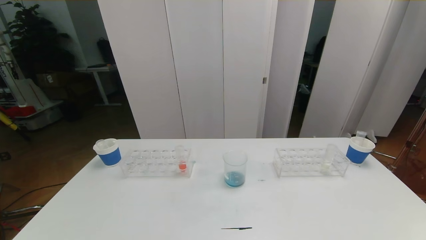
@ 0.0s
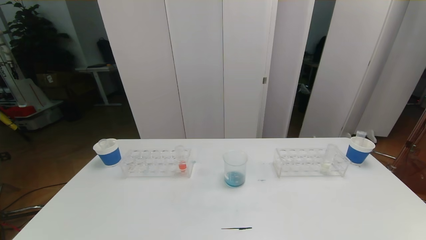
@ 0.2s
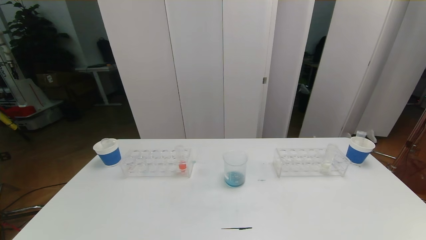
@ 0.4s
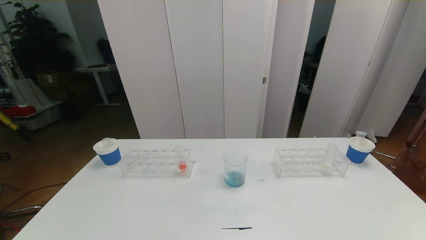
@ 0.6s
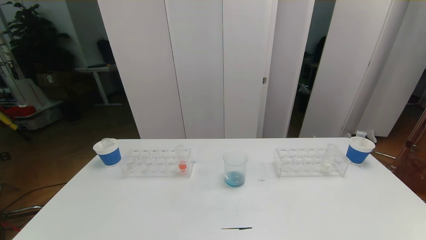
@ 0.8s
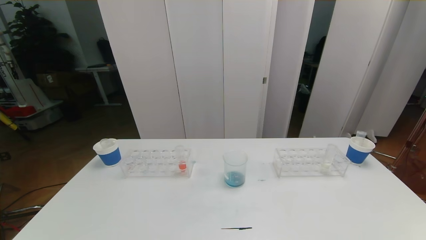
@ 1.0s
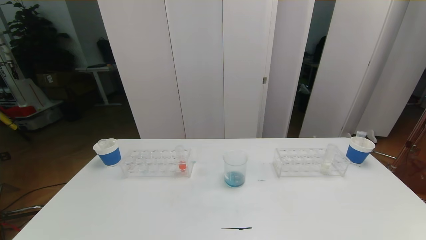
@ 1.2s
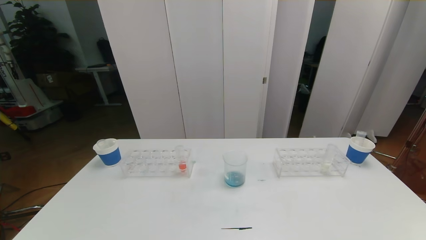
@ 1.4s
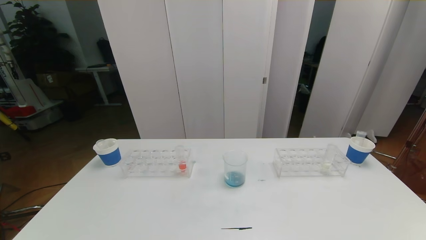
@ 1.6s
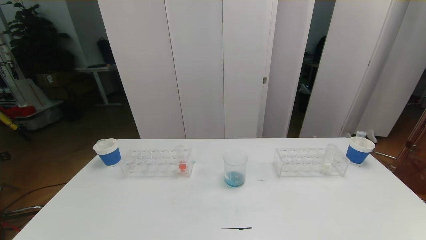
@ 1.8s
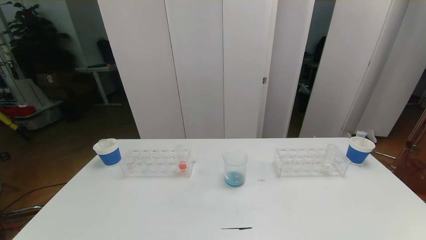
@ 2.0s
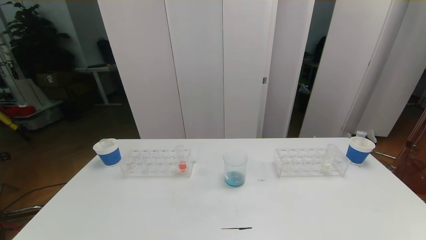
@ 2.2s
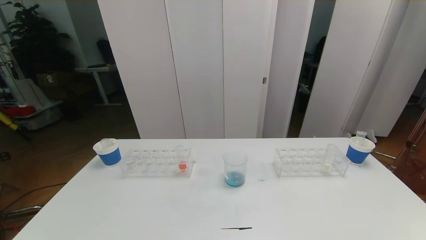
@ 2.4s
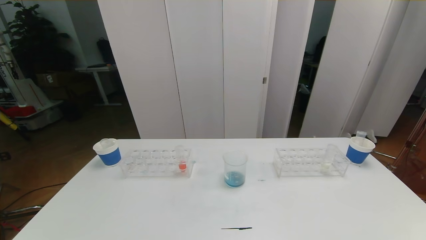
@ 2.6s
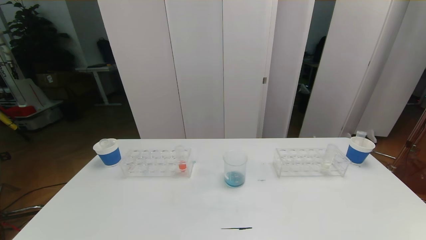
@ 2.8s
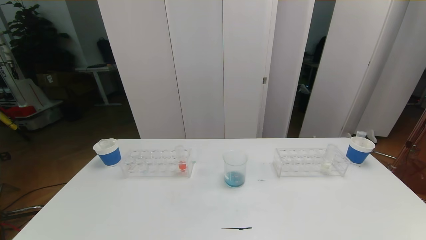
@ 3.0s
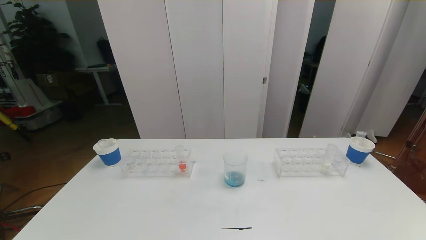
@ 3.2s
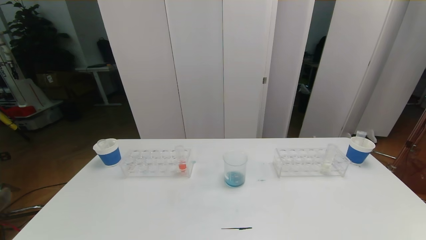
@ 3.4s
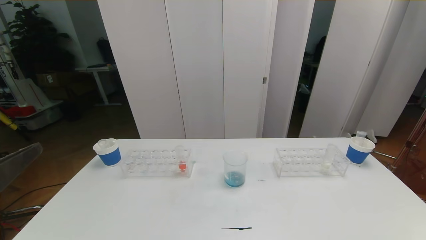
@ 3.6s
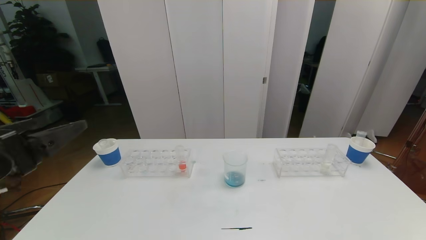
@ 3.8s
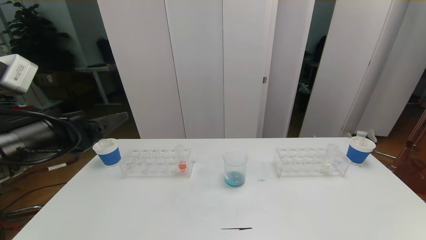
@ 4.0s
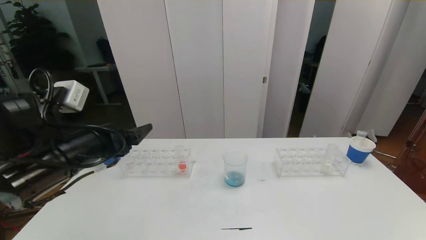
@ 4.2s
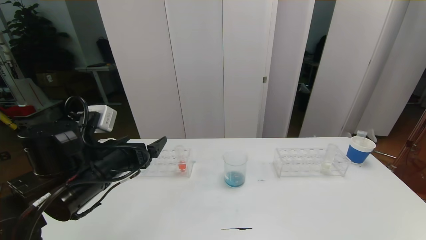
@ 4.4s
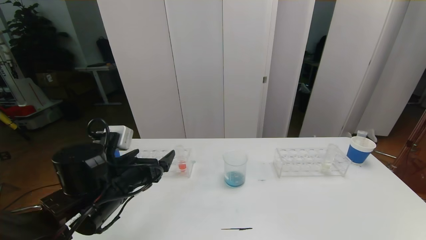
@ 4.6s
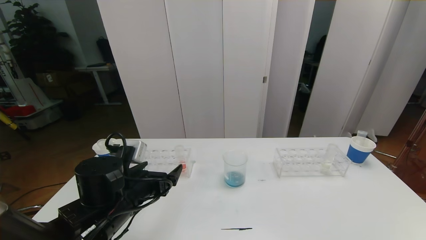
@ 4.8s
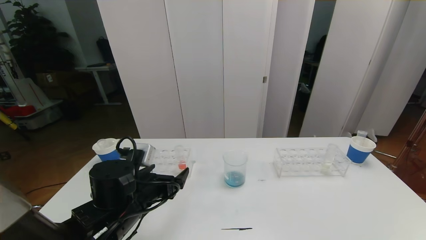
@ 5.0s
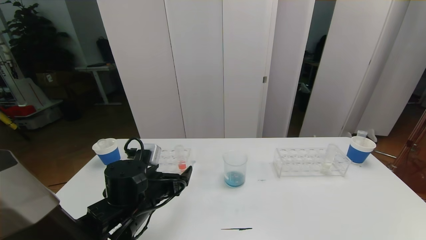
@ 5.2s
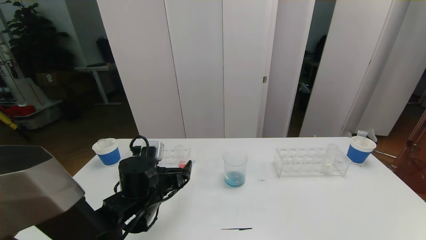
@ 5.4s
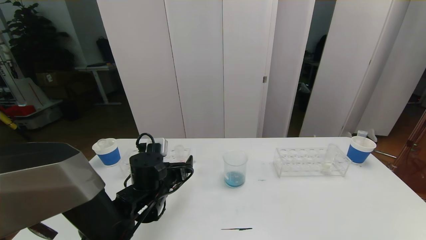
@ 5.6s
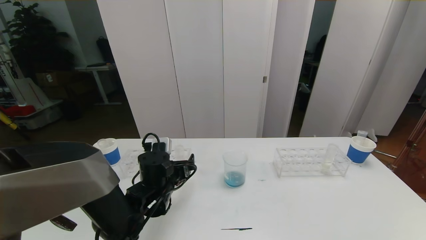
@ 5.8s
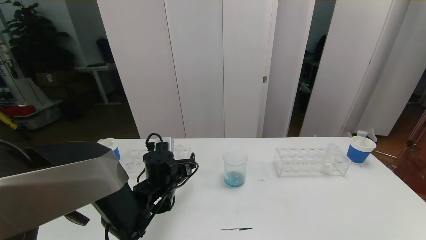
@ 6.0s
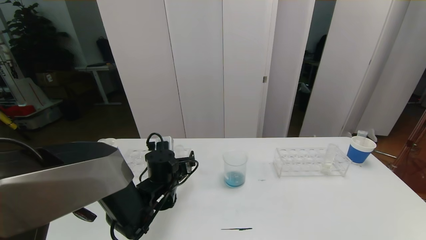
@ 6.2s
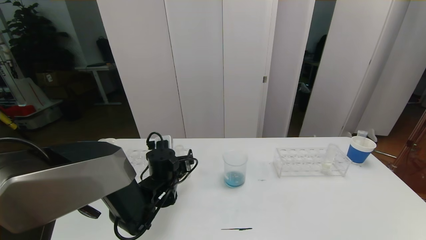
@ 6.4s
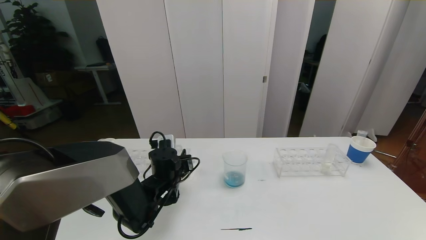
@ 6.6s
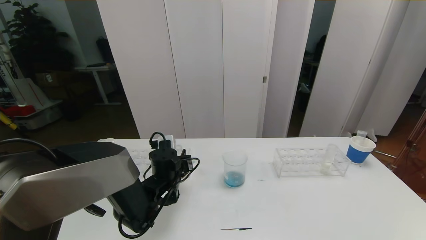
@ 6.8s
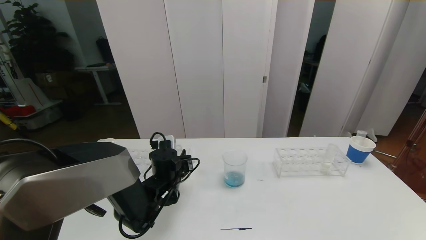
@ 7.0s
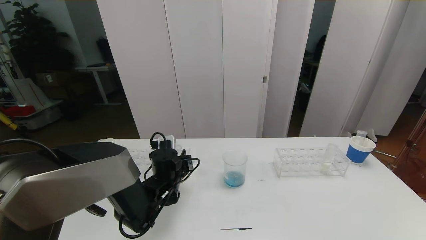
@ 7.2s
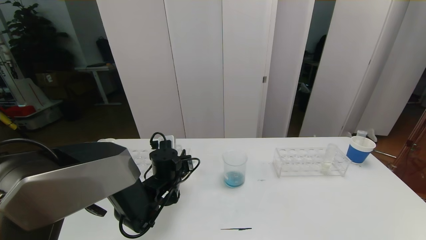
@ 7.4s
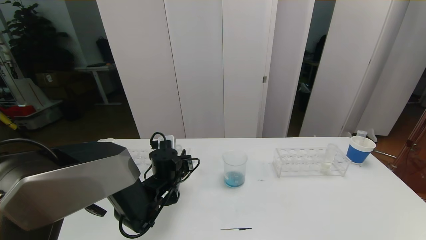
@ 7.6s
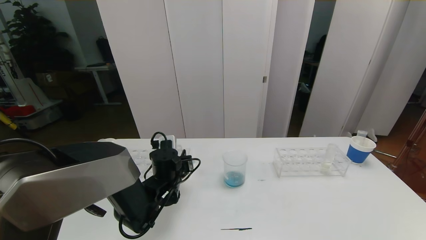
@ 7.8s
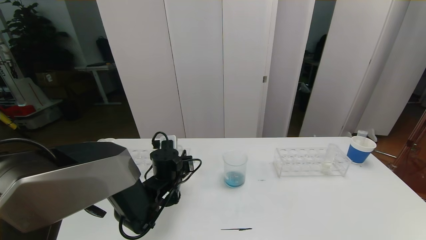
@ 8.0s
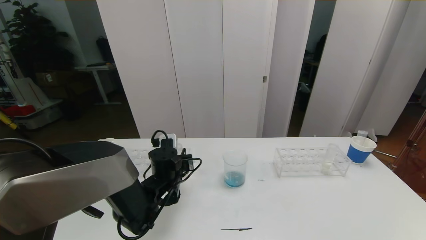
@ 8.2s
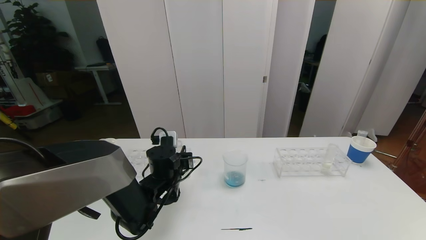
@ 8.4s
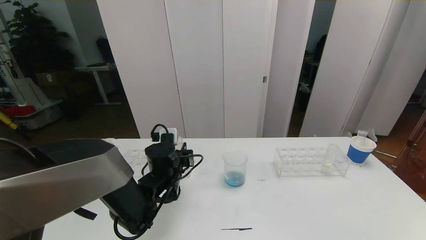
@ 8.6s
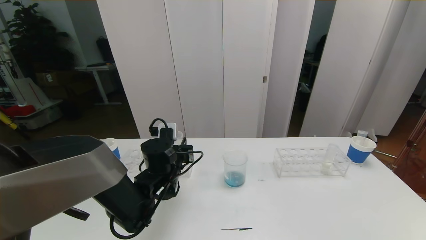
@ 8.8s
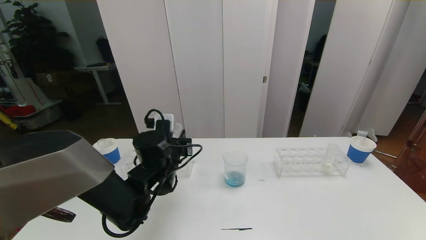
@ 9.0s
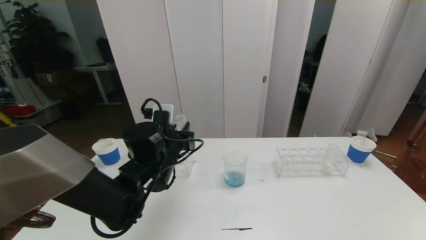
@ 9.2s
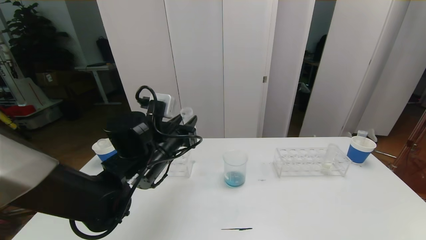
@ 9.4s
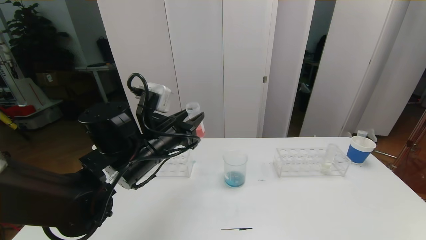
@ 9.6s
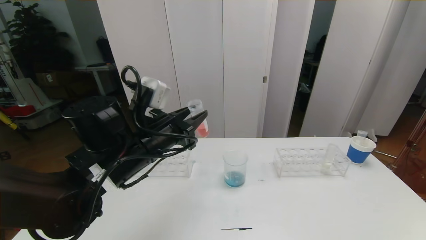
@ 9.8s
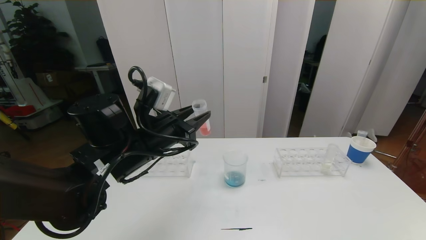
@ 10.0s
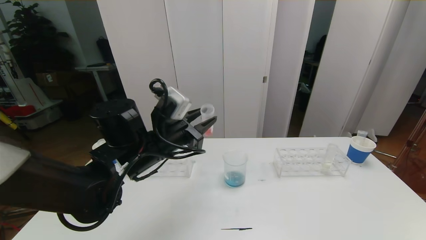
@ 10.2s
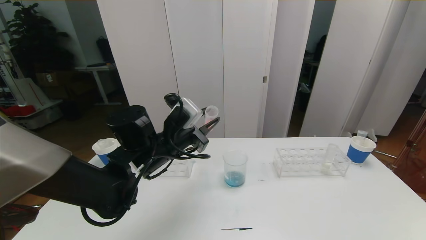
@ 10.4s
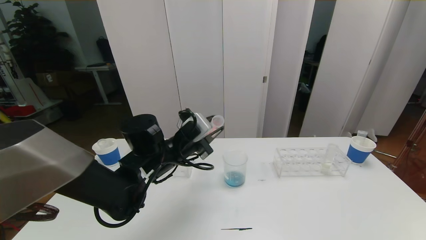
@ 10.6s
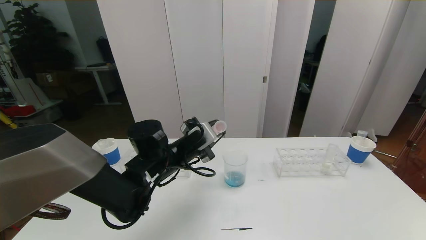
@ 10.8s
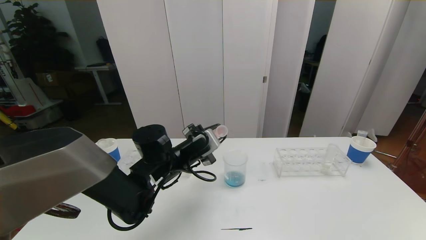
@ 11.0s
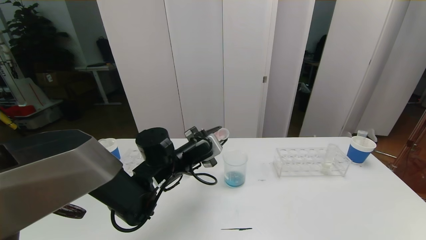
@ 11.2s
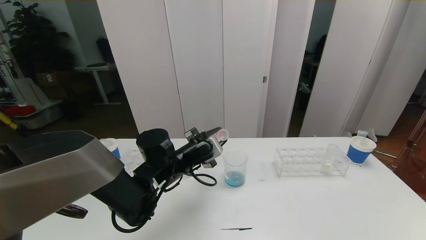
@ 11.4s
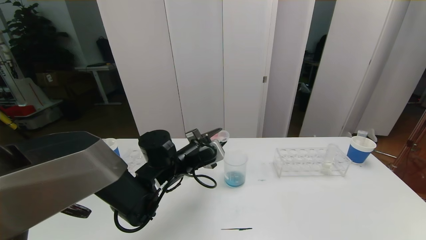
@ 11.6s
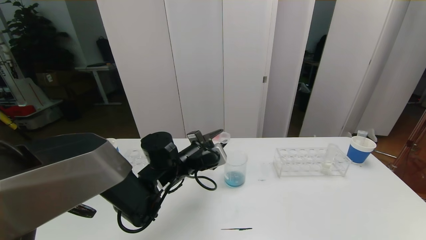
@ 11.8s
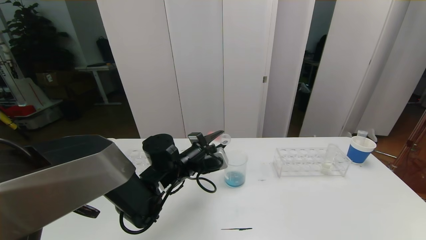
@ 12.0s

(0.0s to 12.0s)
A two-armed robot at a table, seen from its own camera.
Task of the whole recording: pick up the test tube with red pigment the test tube with blue pigment and the test tube with white pigment by grippers and pour them into the beaker.
3.0s - 4.4s: The left gripper travels forward by some 25 cm.
4.4s - 6.0s: The left gripper shifts roughly 15 cm downward, forward and to the right.
6.0s - 7.6s: The left gripper closes its fingers.
7.6s - 9.0s: The left gripper shifts roughly 10 cm upward.
10.4s - 12.0s: The left gripper goes some 5 cm downward.

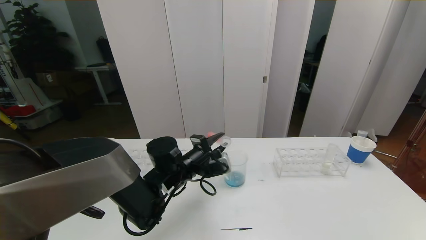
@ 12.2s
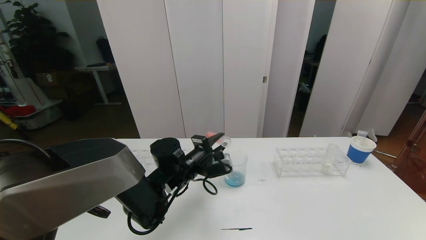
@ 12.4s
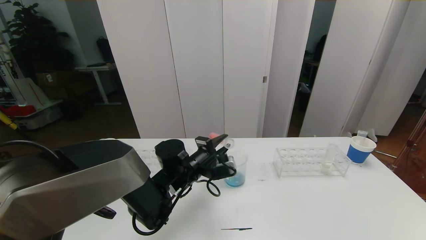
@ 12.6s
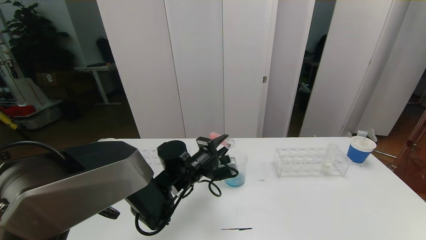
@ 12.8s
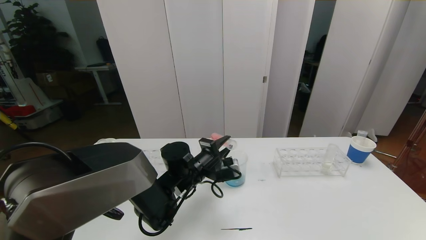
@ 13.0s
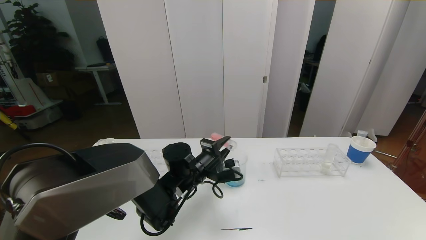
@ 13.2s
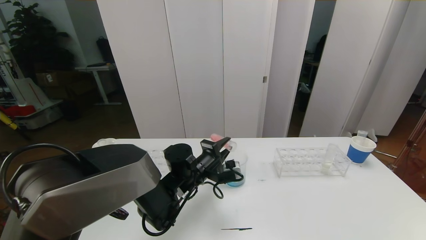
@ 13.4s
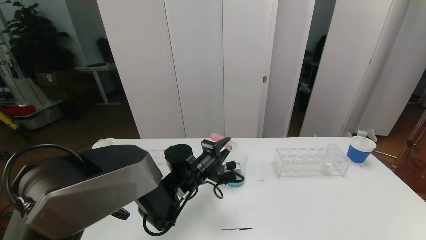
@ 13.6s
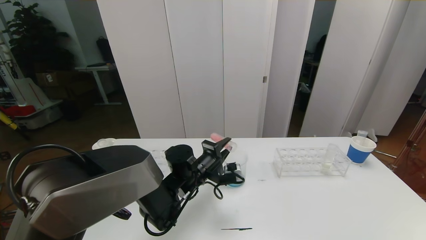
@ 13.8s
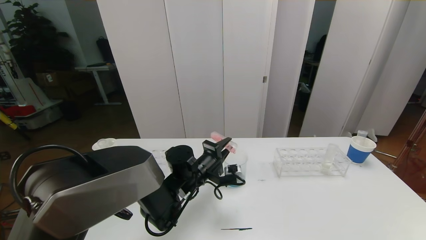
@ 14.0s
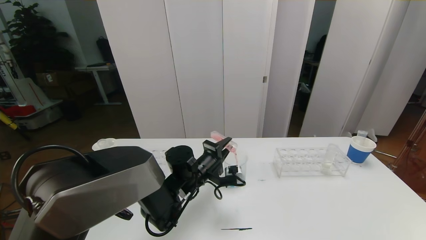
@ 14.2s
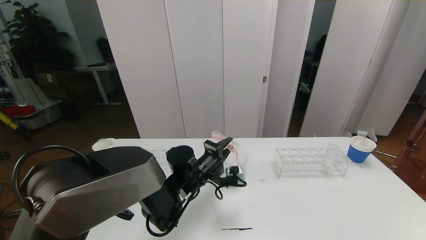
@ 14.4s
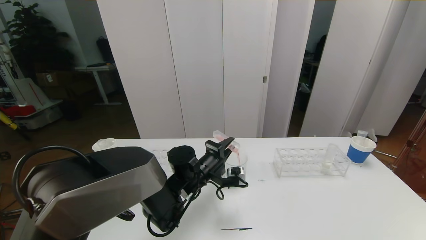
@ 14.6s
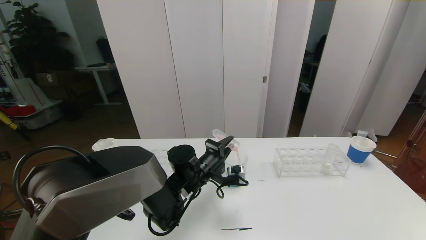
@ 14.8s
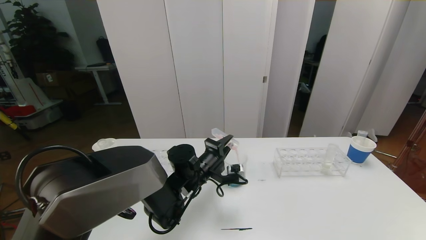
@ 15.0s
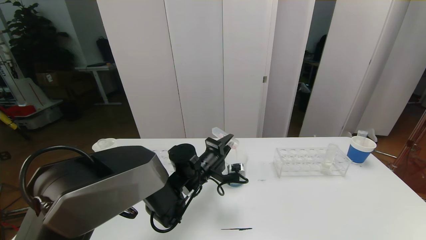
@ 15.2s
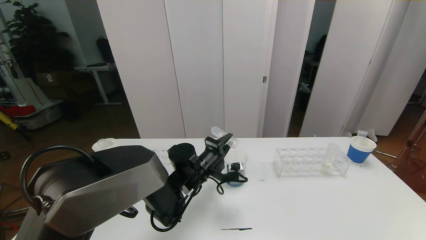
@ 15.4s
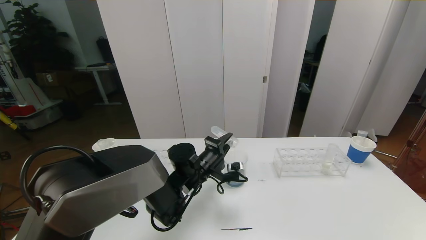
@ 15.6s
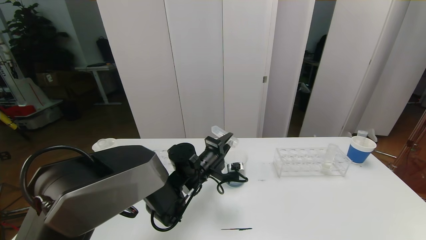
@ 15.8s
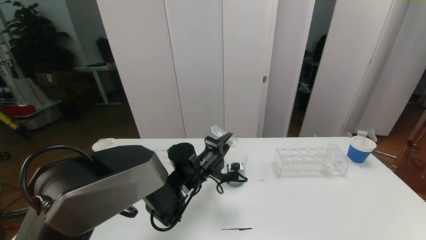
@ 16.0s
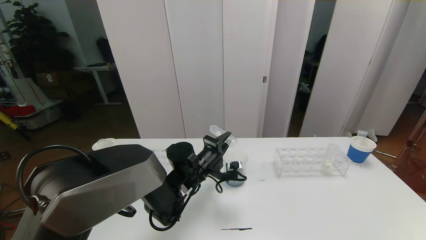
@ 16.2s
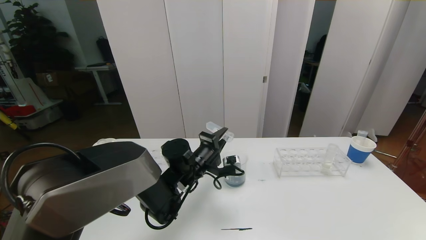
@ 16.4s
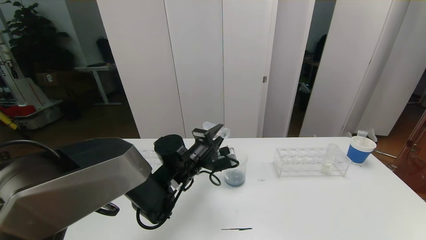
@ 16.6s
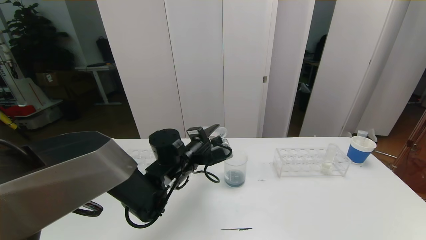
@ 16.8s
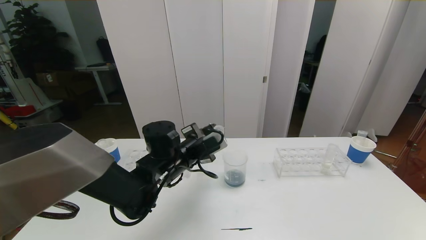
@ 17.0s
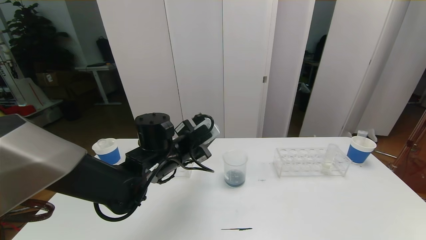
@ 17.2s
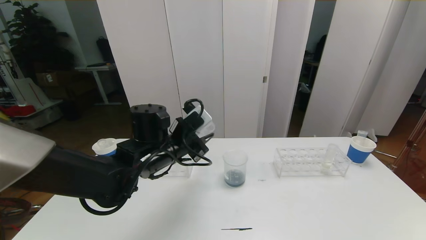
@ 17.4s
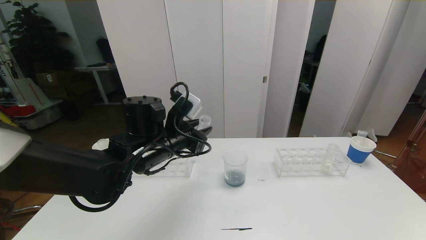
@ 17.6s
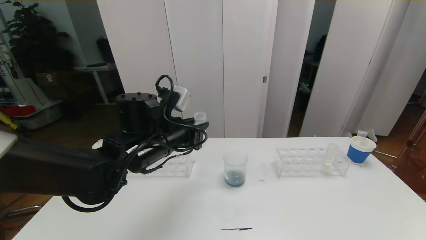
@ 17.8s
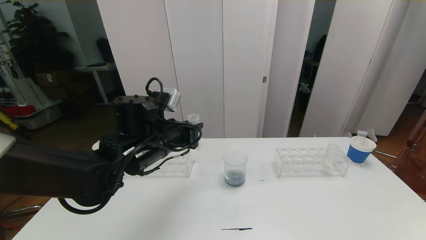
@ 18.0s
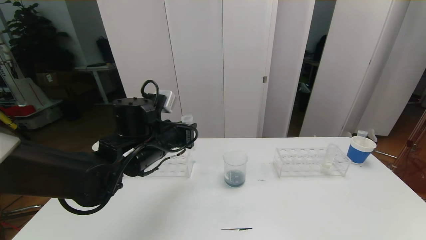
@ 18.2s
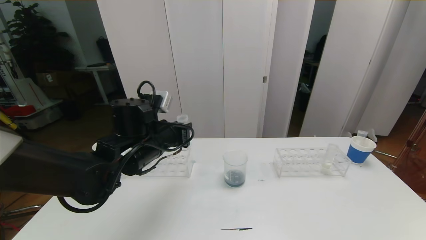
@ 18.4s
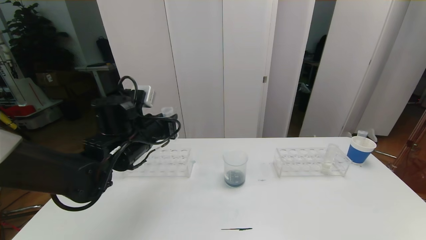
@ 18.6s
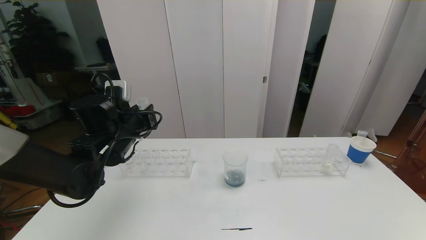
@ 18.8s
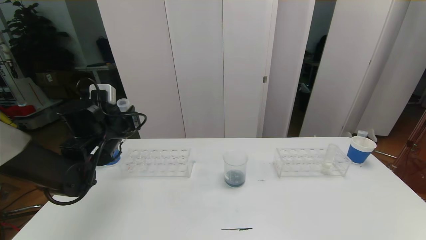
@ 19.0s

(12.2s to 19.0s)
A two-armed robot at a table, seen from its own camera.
Task of the whole recording: pick up the test tube with red pigment the test tube with blue pigment and the test tube with white pigment by grippers and pour them into the beaker.
12.2s - 15.0s: The grippers stay close to where they were, moving slightly.
15.0s - 16.2s: Both grippers stay put.
16.2s - 17.6s: The left gripper is displaced upward and to the left by some 15 cm.
17.6s - 19.0s: The left gripper goes roughly 15 cm to the left.
